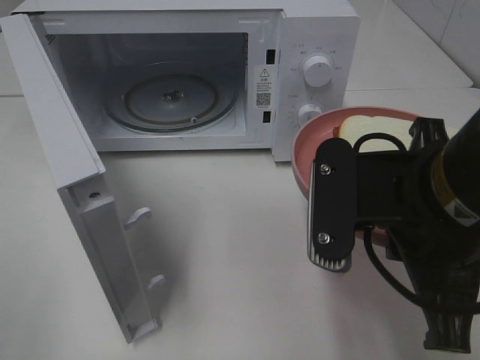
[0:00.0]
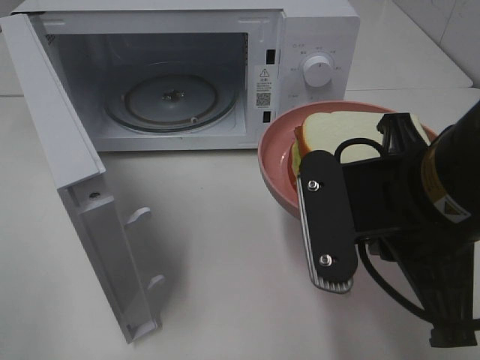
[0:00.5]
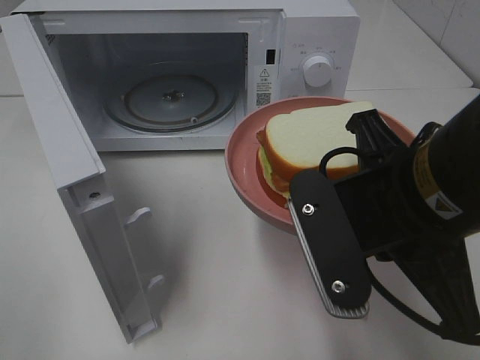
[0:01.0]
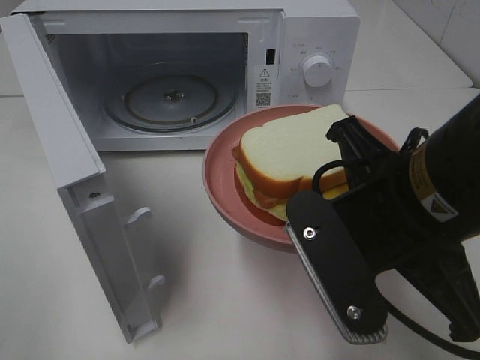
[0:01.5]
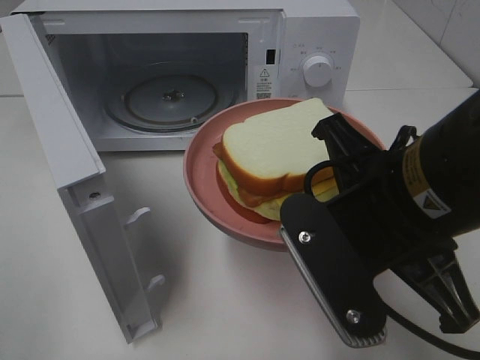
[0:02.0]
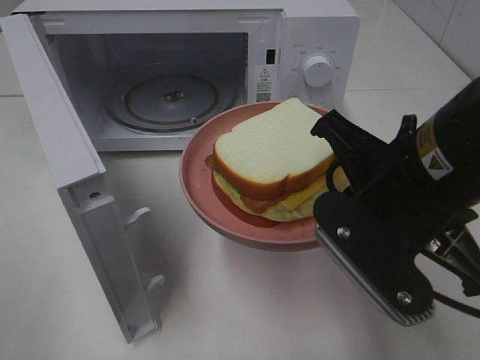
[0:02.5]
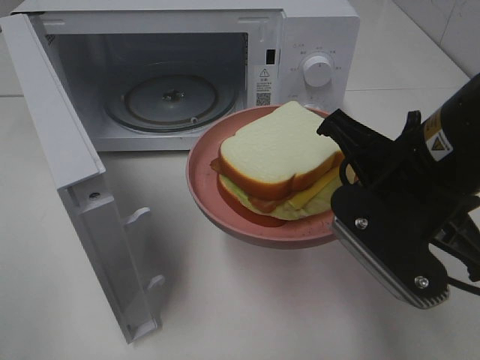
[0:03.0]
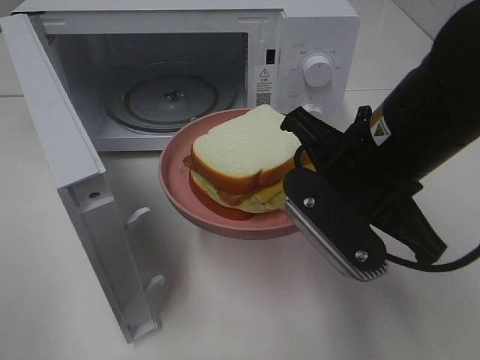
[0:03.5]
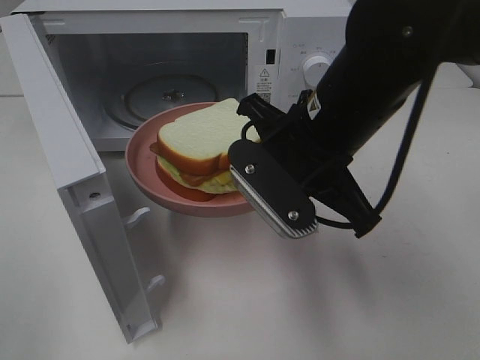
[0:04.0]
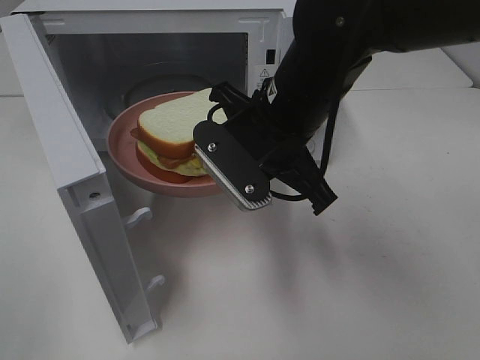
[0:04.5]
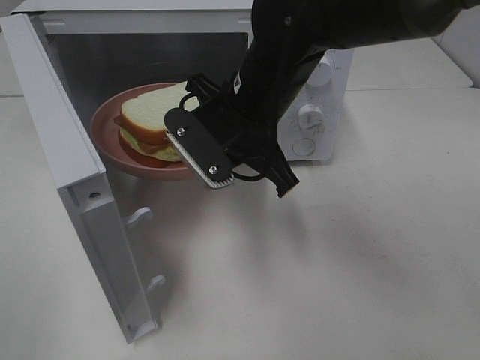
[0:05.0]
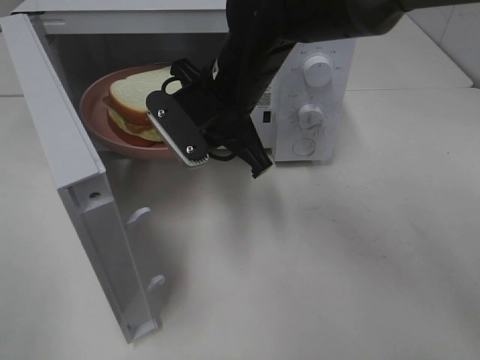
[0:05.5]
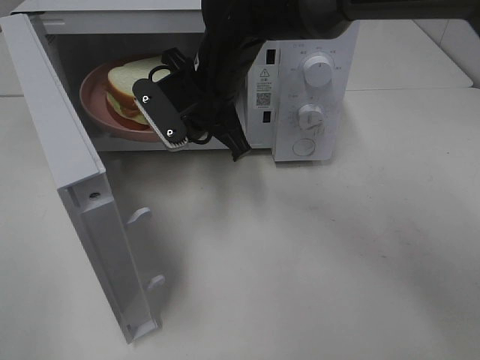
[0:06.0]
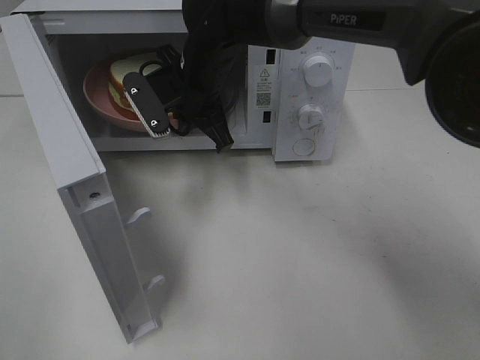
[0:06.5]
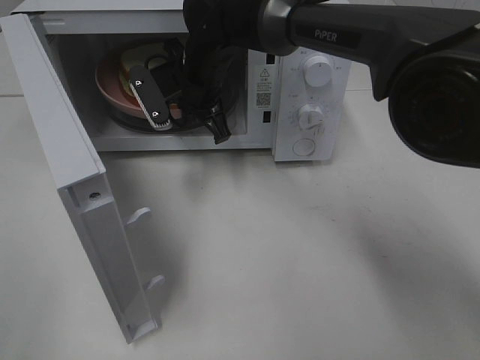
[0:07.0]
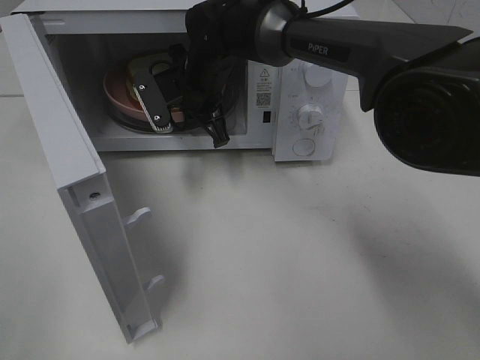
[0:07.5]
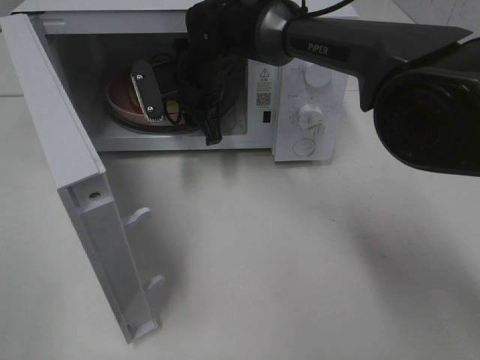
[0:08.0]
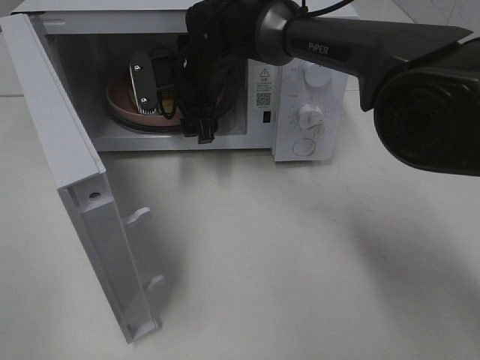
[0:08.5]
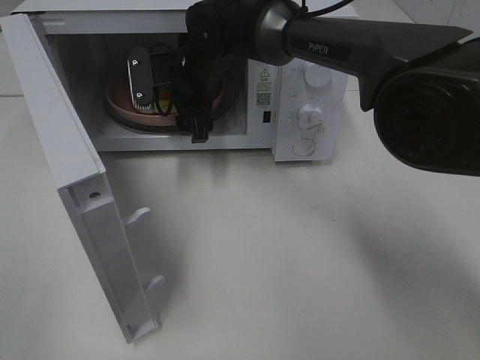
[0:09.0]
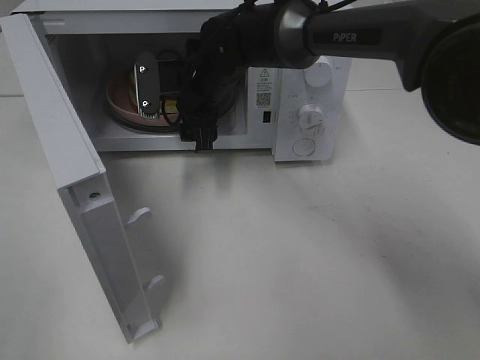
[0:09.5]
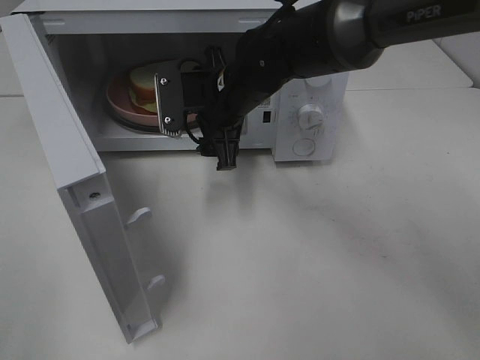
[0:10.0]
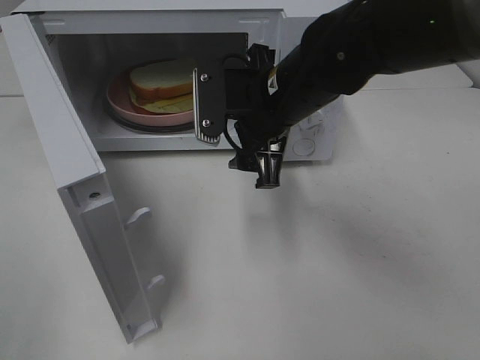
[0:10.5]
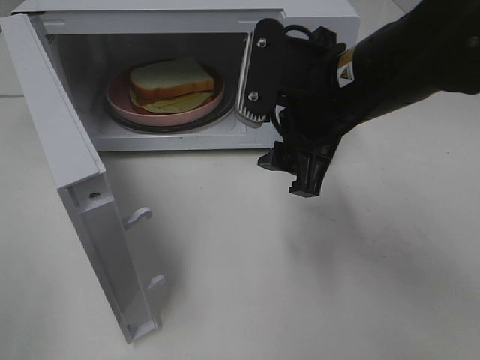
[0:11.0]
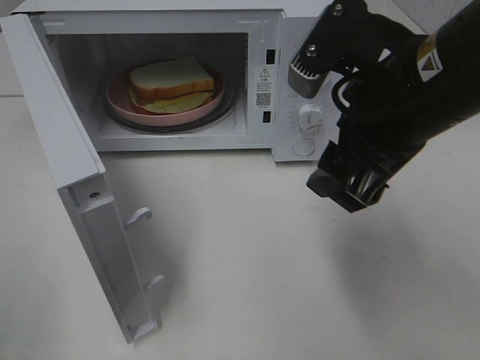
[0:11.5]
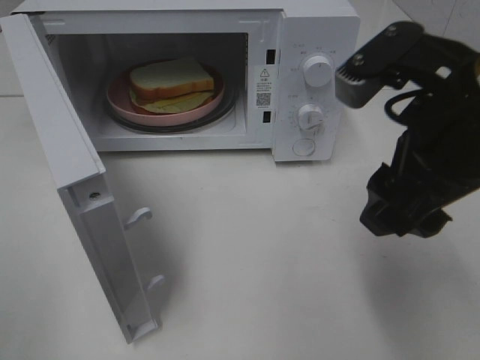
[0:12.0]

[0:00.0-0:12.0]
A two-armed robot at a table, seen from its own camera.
Task of the whole recording: Heat Sandwich.
Step, 0:00.0 to 0:09.0: Right hand: place the plate in the microwave.
0:02.0 to 0:04.0: The right gripper moves forward, roughly 10 cm.
0:04.0 to 0:06.0: The right gripper shifts about 15 cm forward and to the left.
0:06.0 to 0:08.0: The right gripper shifts approximately 5 cm forward, and opens up.
0:08.0 to 0:10.0: The right gripper goes about 5 cm backward.
0:10.0 to 0:12.0: The right gripper goes approximately 25 cm backward, to the right and upward.

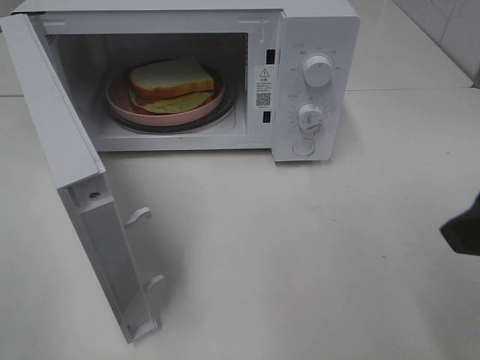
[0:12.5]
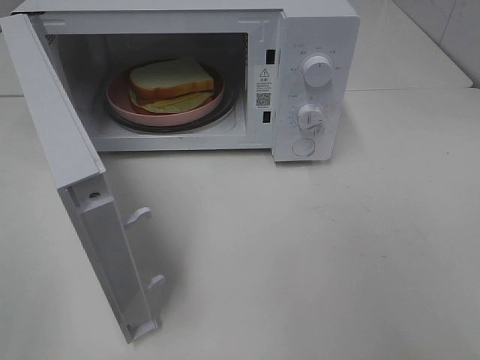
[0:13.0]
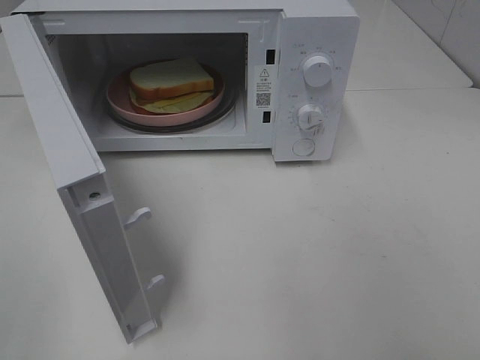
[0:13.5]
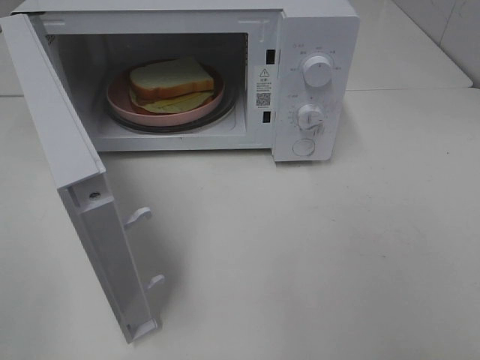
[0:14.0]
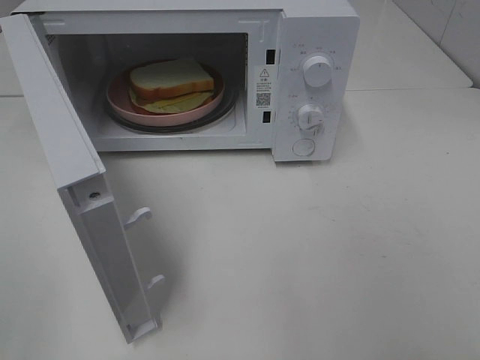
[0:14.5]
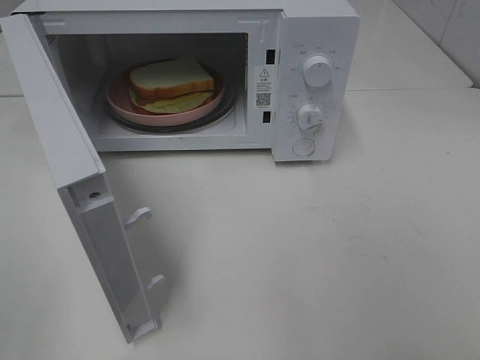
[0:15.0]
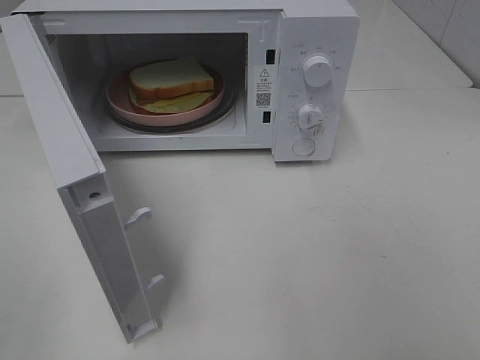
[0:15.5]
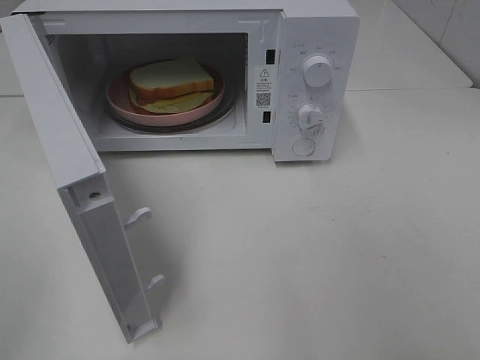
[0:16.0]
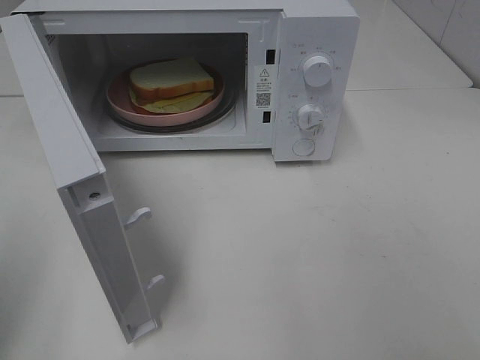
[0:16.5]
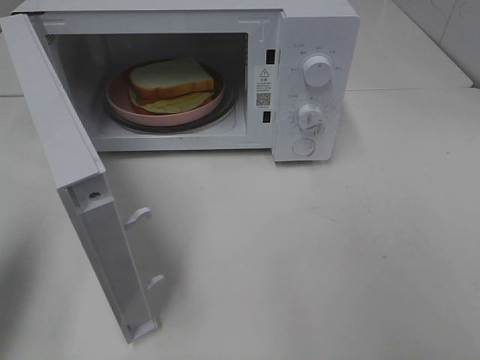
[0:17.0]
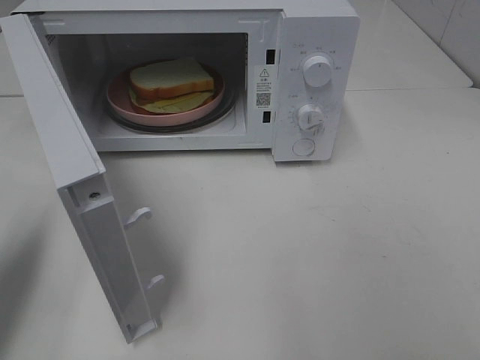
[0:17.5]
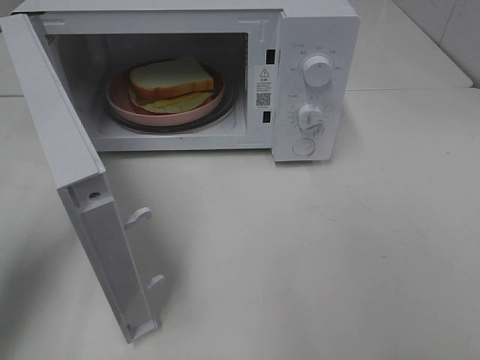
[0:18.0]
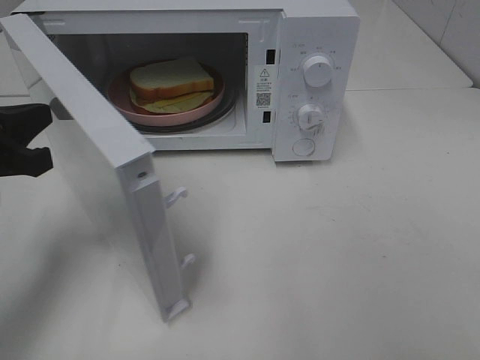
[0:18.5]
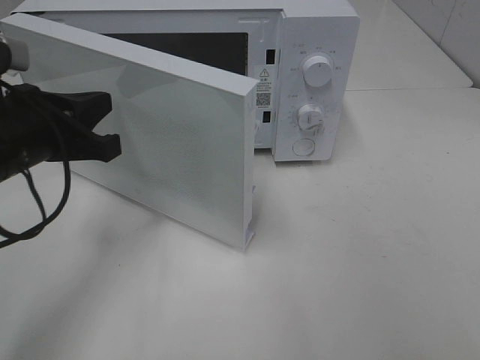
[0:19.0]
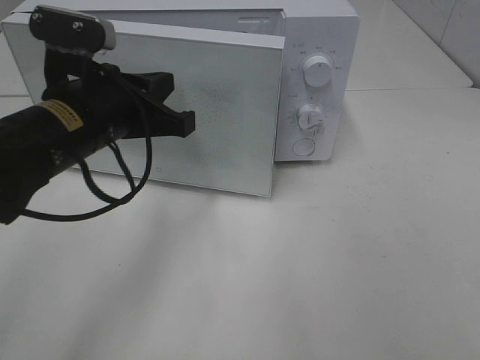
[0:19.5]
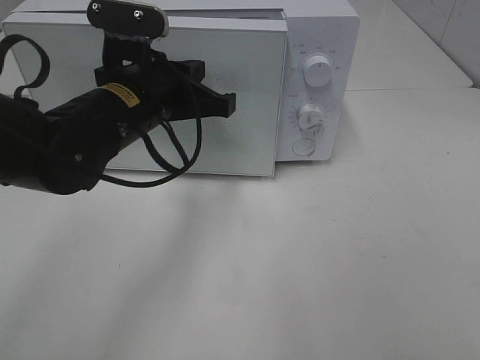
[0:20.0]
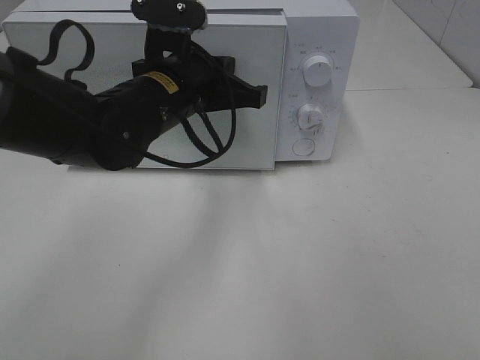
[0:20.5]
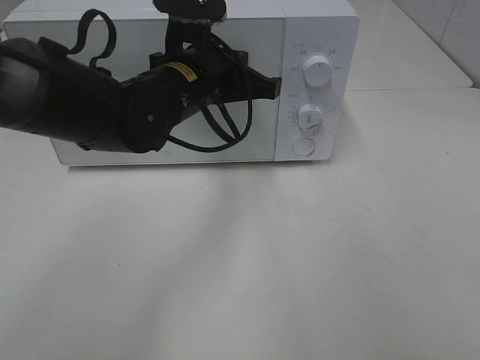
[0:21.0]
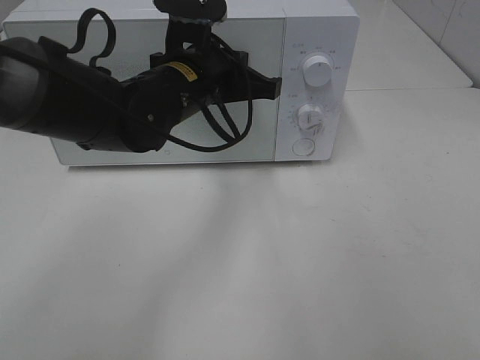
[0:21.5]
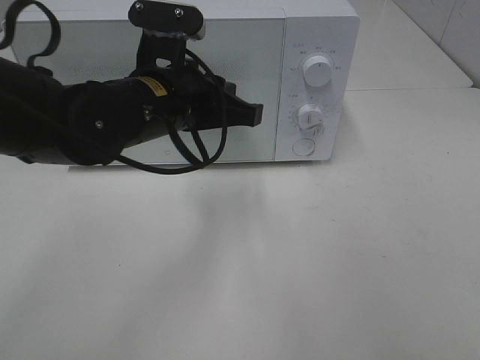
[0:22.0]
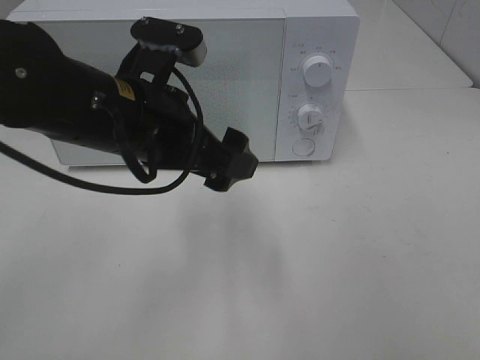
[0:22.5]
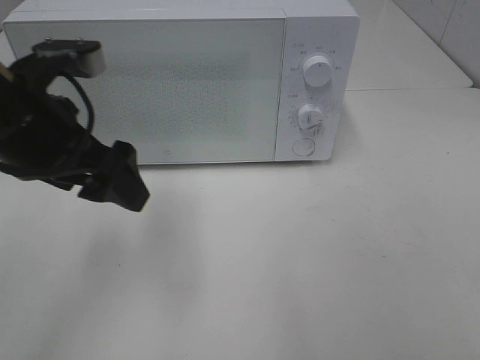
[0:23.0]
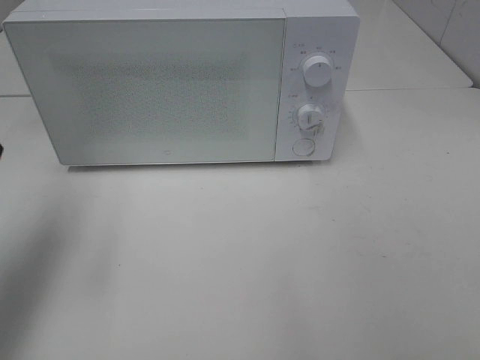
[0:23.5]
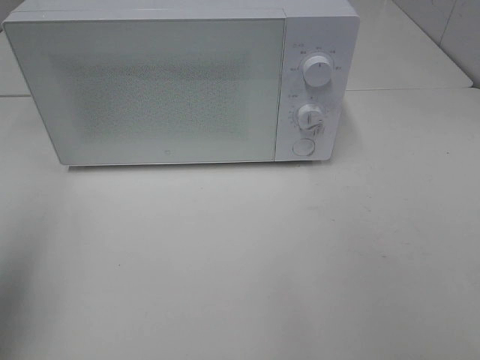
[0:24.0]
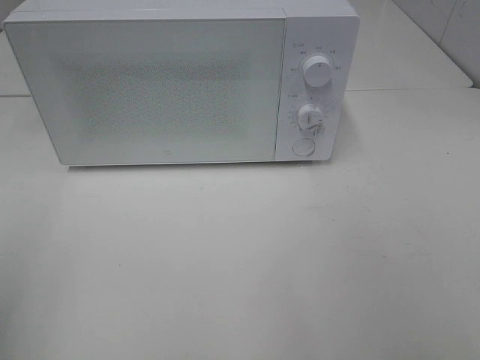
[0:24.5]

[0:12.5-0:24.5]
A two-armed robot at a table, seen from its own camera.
Task of the whole recording: Heat Sandwich.
Step, 0:12.5 to 0:22.0: Left hand: close the microwave door.
0:12.5 to 0:14.5: The right gripper heads backward and to the right, covering roughly 15 cm.
0:16.5 to 0:18.5: The left gripper travels forward, downward and to the right by about 20 cm.
0:18.5 to 0:20.5: The left gripper moves to the right and forward, about 20 cm.
0:20.5 to 0:22.5: The left gripper travels backward by about 10 cm, and opens up.
0:22.5 to 0:24.5: The left gripper heads to the left and backward, covering about 30 cm.

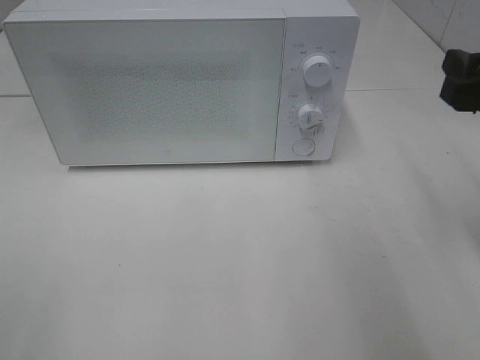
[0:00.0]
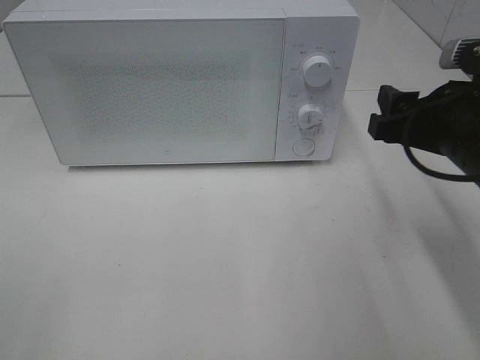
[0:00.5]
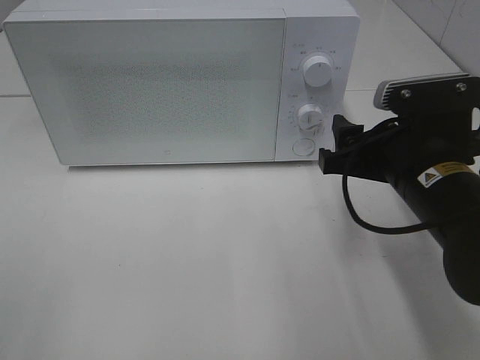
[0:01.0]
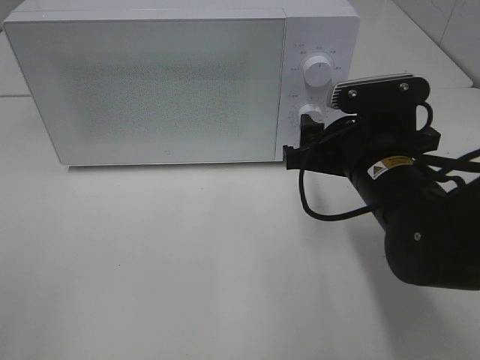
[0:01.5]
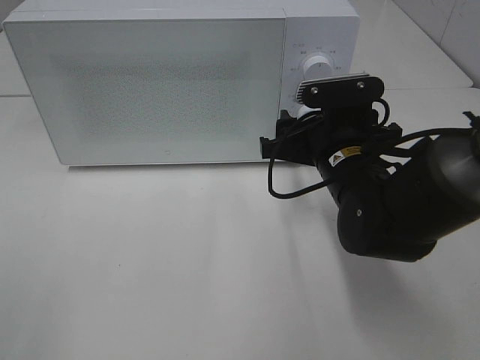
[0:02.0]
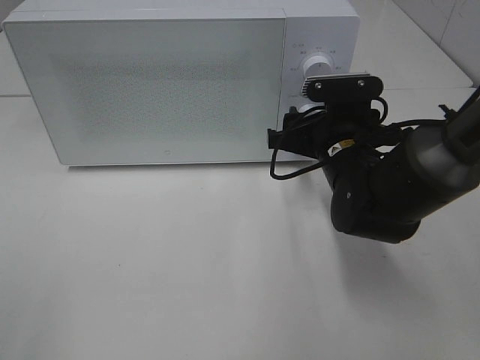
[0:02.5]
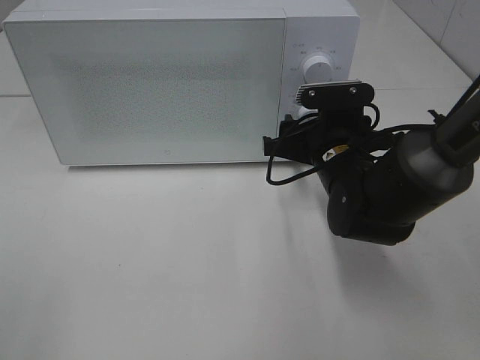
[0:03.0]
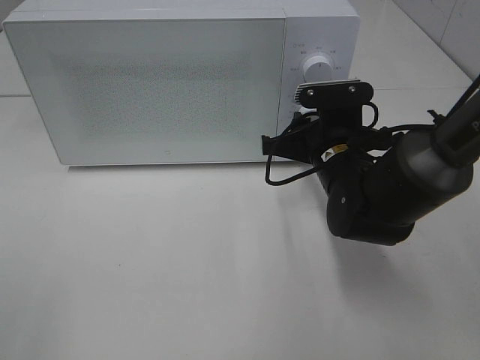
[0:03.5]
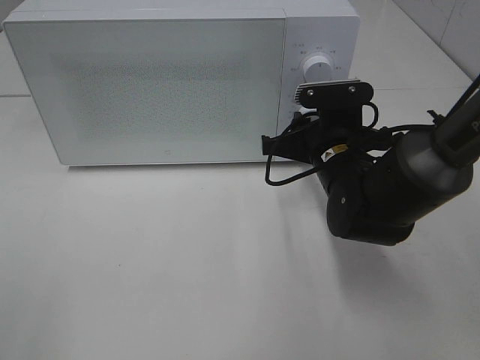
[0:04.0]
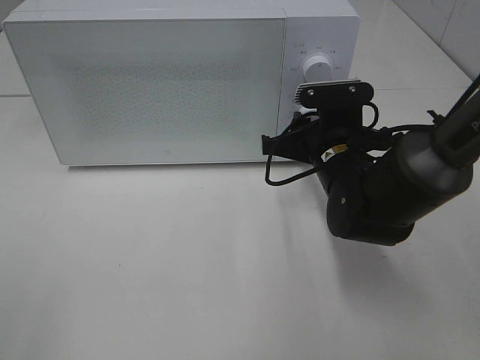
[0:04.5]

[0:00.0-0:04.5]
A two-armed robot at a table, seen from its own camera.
Task of the whole recording: Heat Sandwich.
0:00.0 to 0:02.0: The right gripper shifts about 20 cm to the left, downward and forward.
0:02.0 to 0:04.5: The right gripper closes up.
